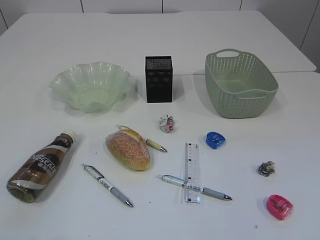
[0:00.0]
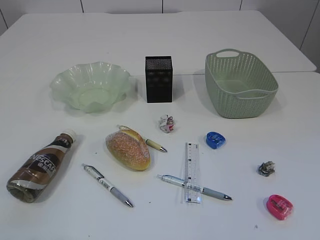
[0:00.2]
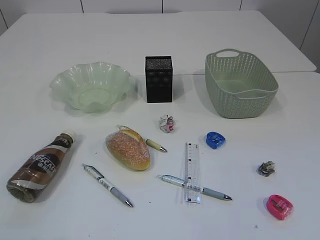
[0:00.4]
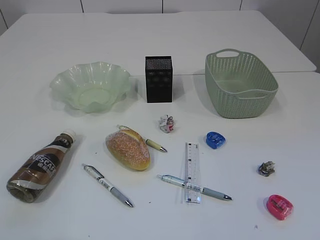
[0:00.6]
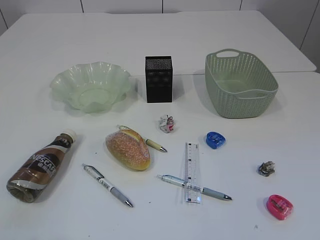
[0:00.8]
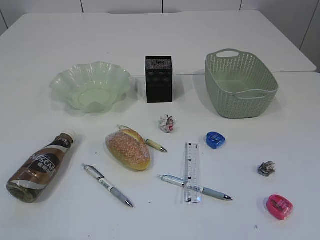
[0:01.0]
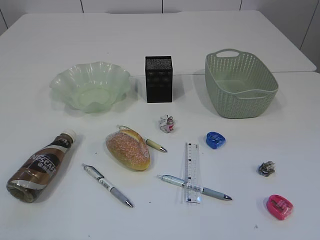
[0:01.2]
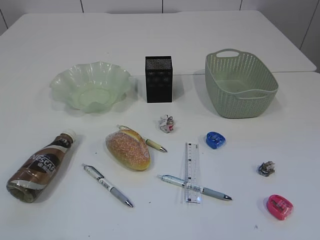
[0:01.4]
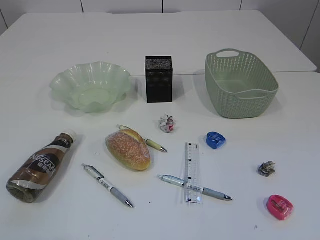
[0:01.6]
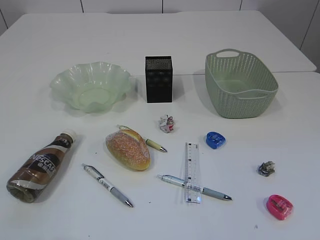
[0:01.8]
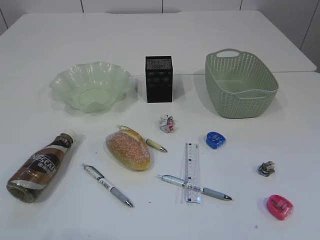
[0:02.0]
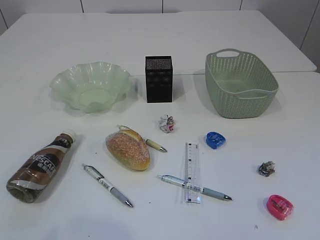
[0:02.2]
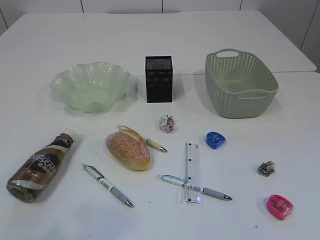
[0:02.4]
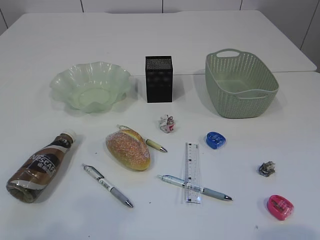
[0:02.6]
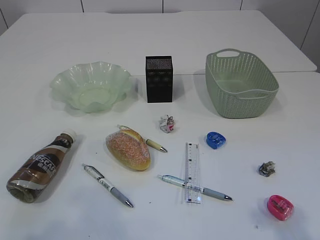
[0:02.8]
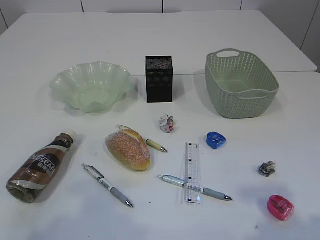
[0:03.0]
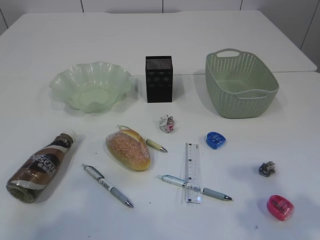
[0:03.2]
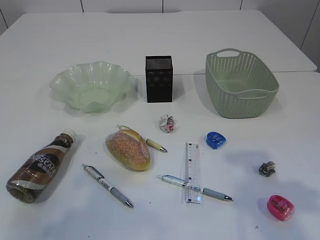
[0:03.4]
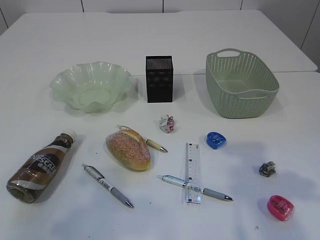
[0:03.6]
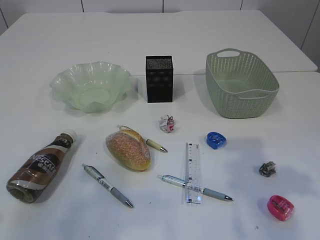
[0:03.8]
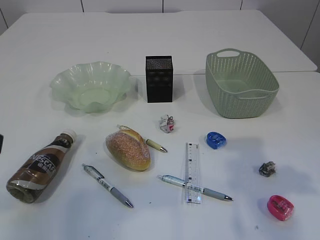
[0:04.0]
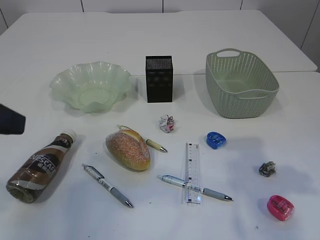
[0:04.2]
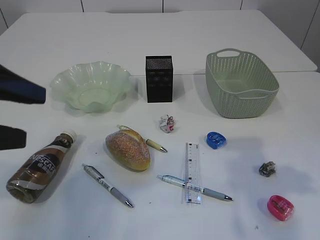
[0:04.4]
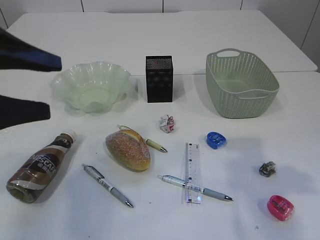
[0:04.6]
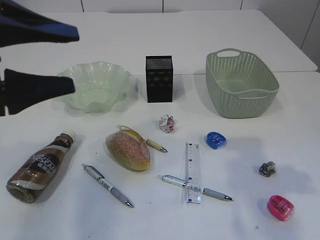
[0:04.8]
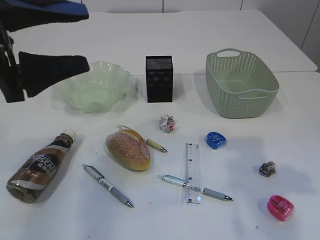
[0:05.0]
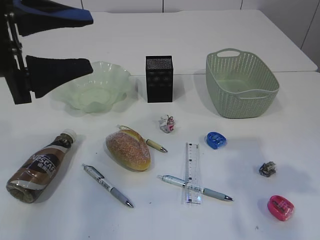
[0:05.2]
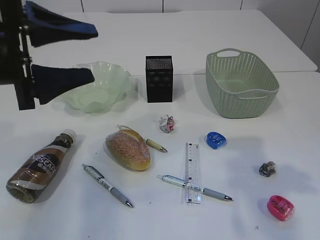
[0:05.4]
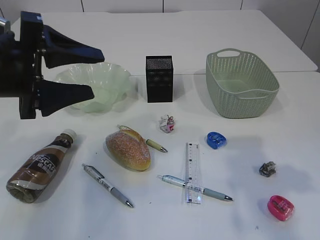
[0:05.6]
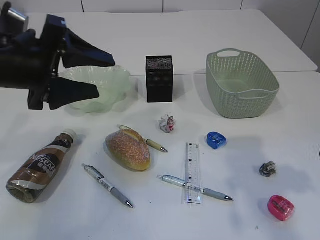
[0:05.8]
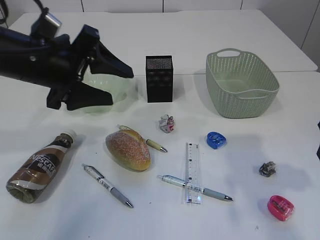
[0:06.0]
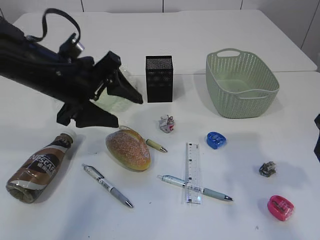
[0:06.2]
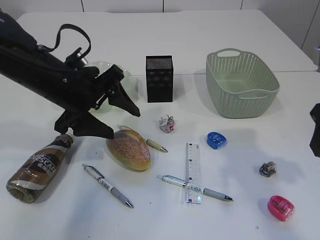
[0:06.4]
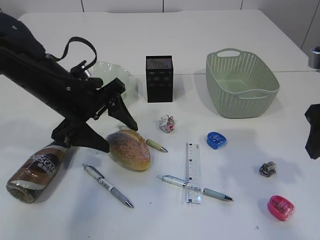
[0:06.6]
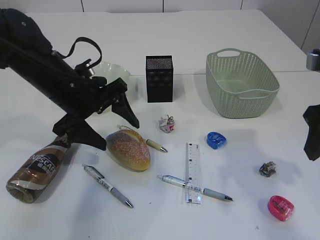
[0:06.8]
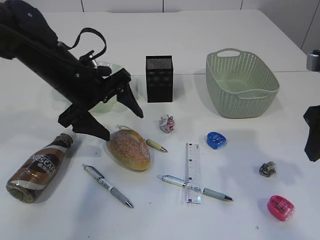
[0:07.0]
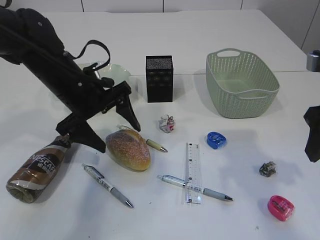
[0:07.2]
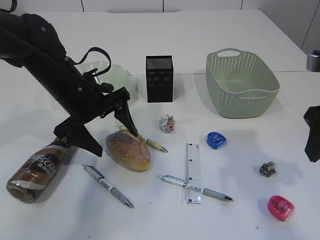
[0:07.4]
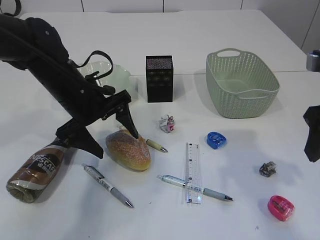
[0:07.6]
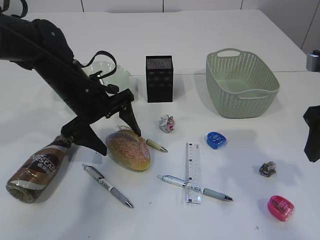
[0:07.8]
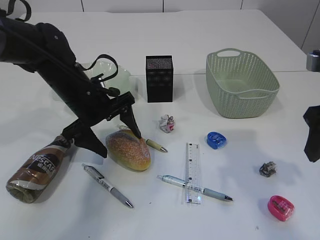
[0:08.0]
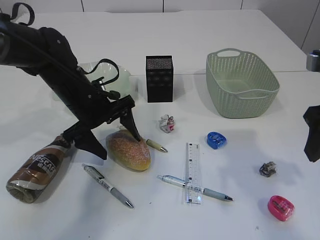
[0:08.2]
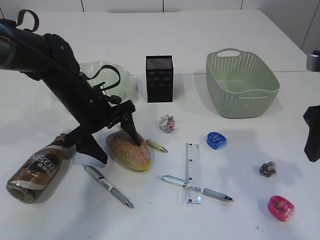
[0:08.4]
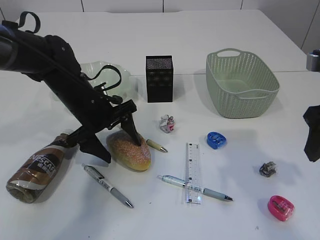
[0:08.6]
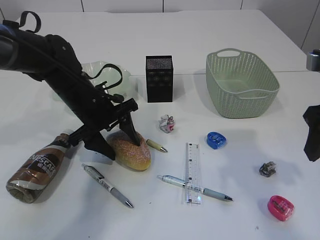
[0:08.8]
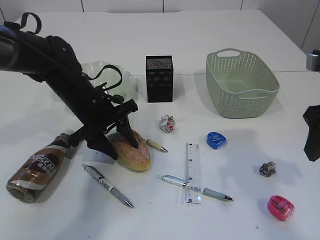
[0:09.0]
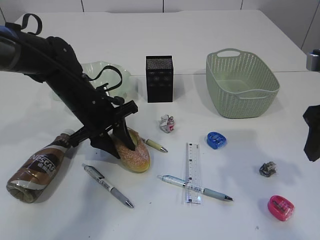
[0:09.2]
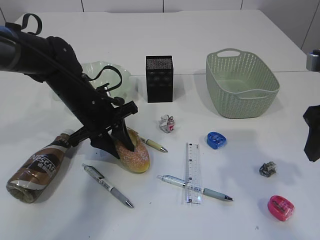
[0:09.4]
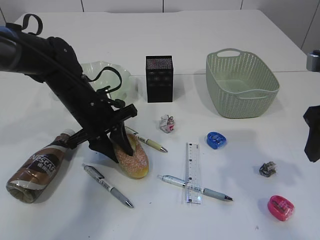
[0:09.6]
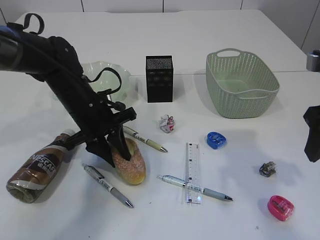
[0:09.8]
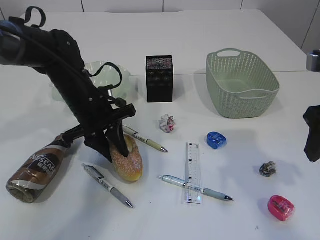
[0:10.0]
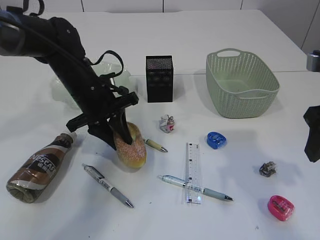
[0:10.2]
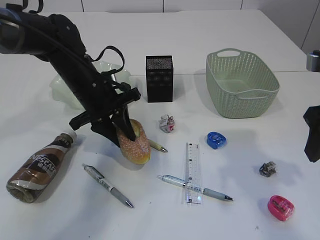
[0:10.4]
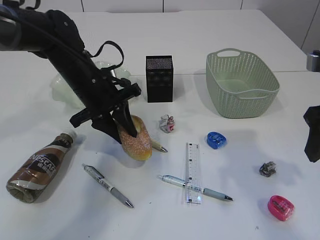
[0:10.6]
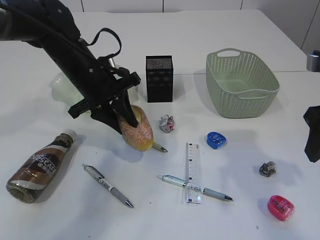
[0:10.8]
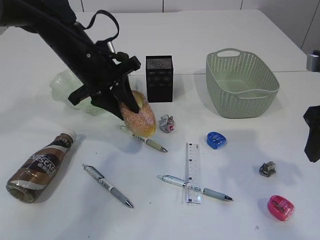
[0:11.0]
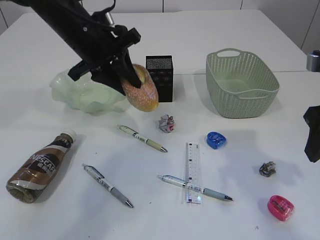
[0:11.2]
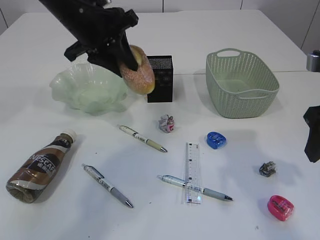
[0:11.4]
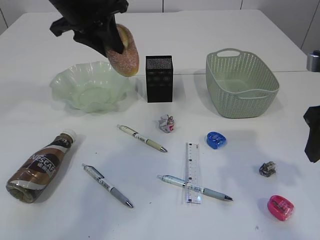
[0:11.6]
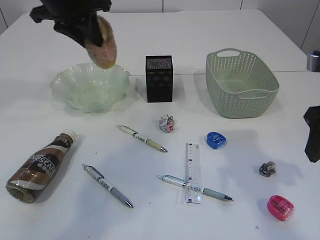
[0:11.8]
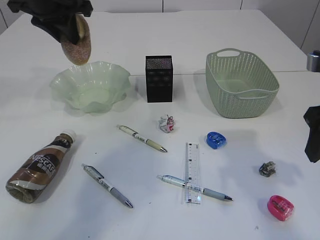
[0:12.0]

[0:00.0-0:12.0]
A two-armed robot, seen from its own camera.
0:01.6 to 0:03.0: Both grippers travel together forward, approximately 10 cm.
0:03.0 to 0:04.4: Both grippers move forward, approximately 10 cm.
0:04.4 to 0:06.0: The left gripper travels forward and to the right by approximately 15 cm.
0:06.0 to 0:07.6: The left gripper travels downward and forward by approximately 10 cm.
0:07.6 to 0:09.0: The left gripper closes its fingers.
0:09.0 to 0:10.4: The left gripper closes its fingers.
0:10.4 to 0:12.0: The left gripper is displaced upward by about 15 cm.

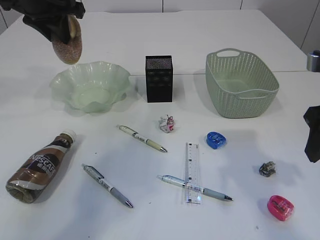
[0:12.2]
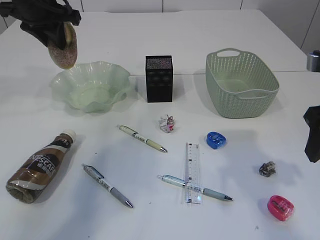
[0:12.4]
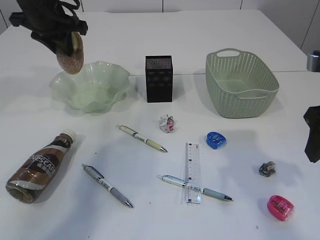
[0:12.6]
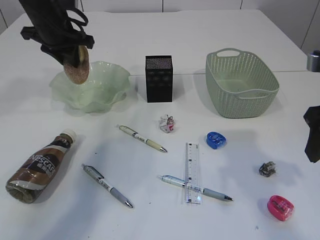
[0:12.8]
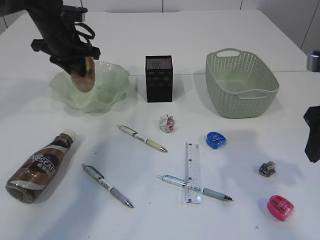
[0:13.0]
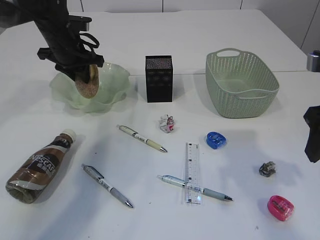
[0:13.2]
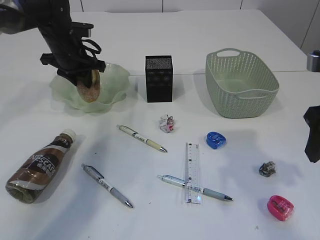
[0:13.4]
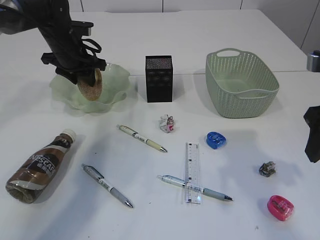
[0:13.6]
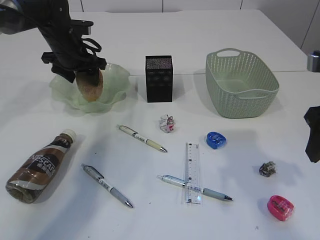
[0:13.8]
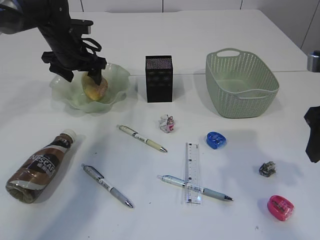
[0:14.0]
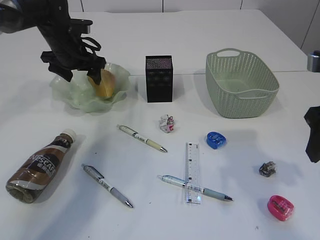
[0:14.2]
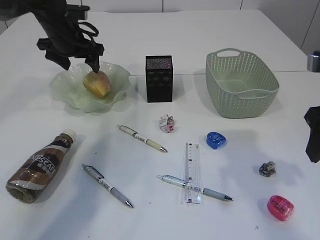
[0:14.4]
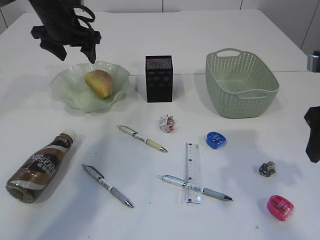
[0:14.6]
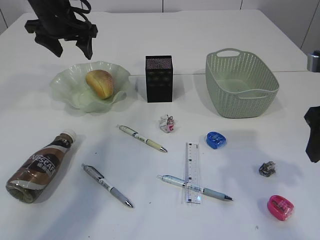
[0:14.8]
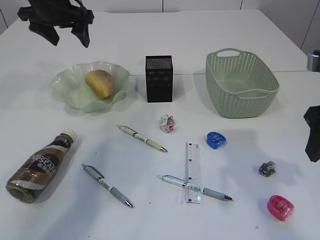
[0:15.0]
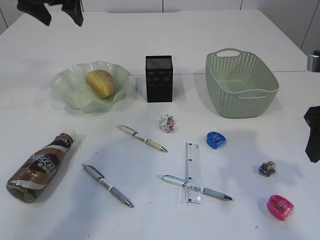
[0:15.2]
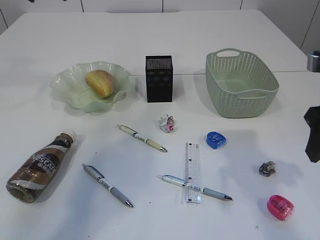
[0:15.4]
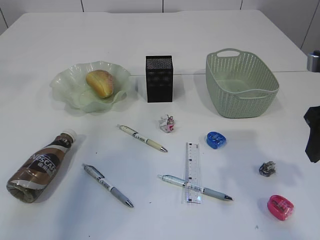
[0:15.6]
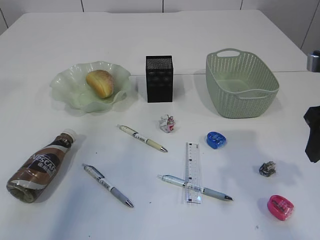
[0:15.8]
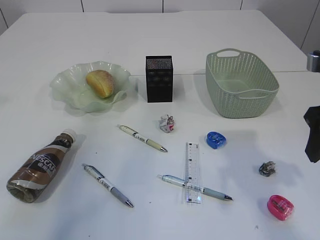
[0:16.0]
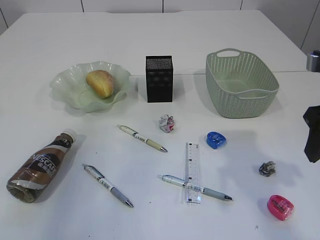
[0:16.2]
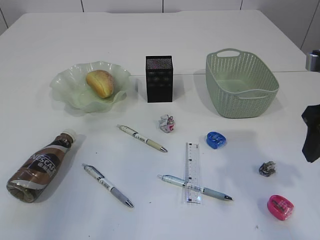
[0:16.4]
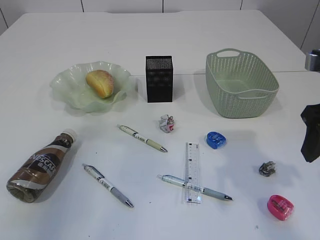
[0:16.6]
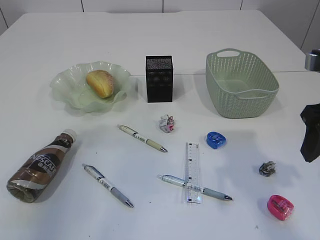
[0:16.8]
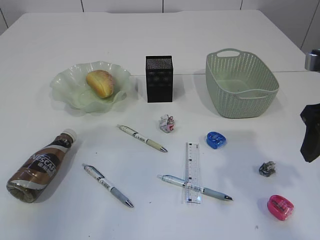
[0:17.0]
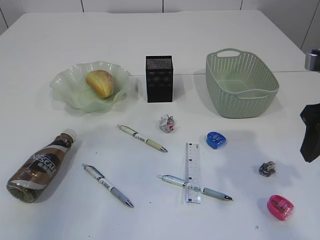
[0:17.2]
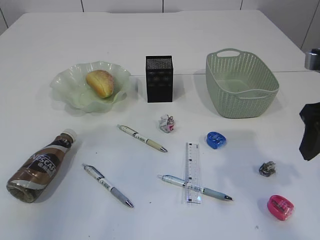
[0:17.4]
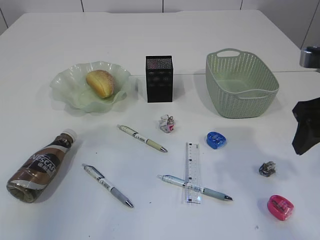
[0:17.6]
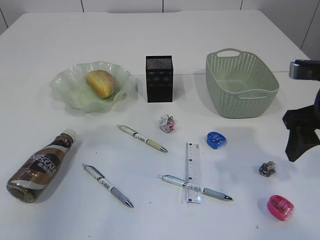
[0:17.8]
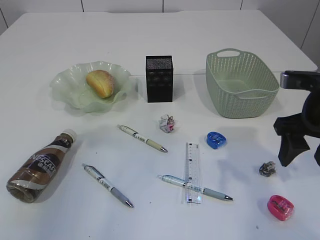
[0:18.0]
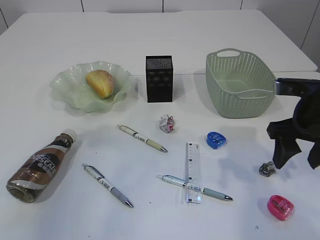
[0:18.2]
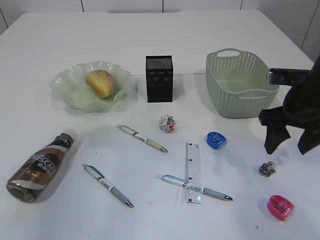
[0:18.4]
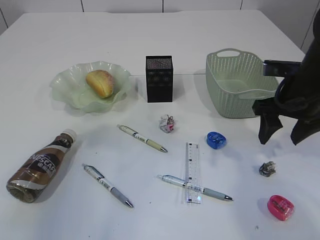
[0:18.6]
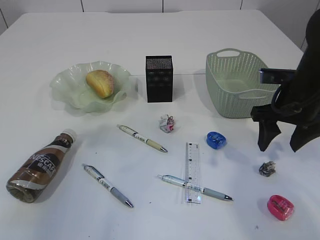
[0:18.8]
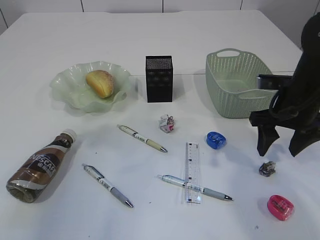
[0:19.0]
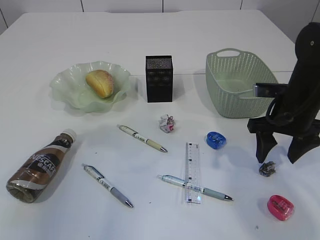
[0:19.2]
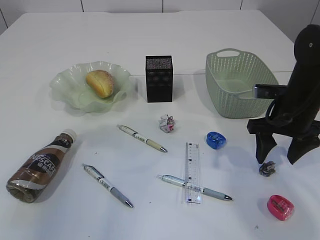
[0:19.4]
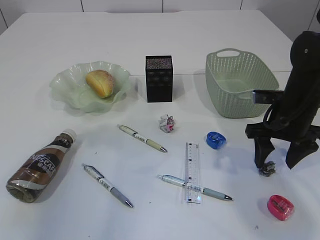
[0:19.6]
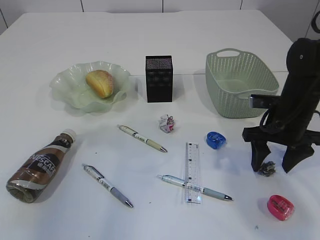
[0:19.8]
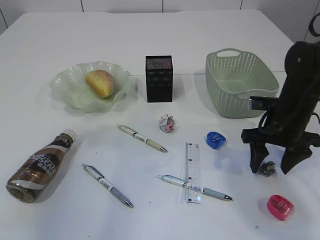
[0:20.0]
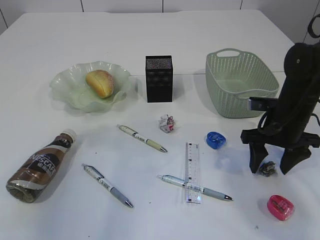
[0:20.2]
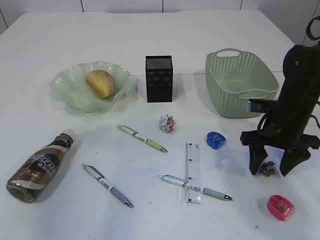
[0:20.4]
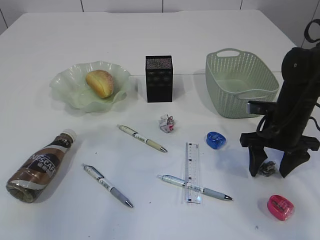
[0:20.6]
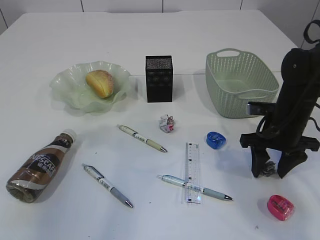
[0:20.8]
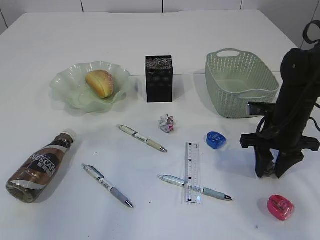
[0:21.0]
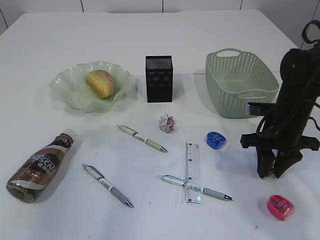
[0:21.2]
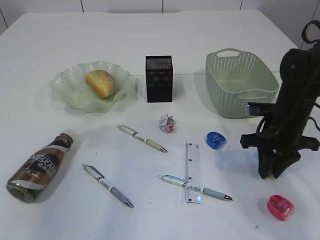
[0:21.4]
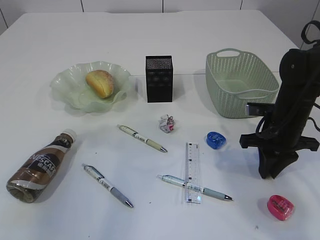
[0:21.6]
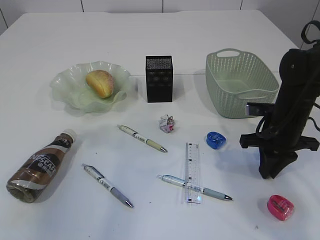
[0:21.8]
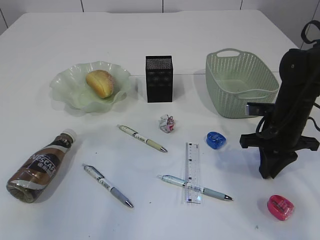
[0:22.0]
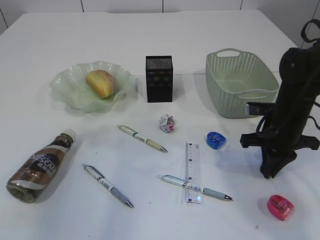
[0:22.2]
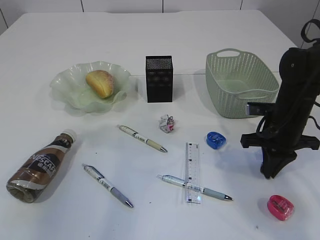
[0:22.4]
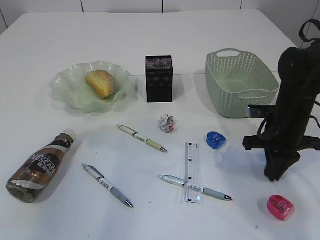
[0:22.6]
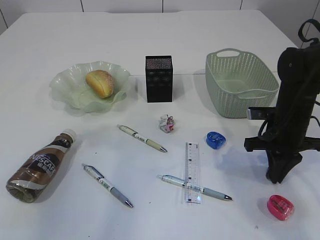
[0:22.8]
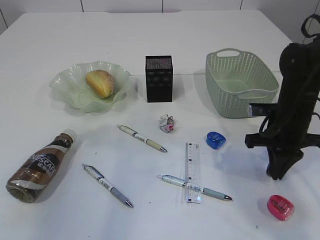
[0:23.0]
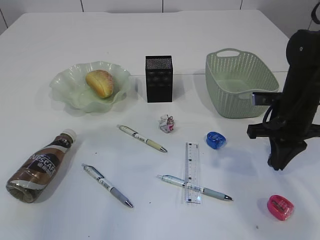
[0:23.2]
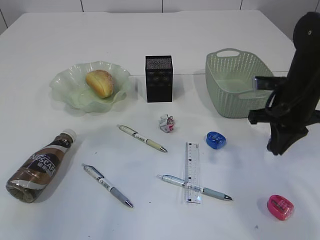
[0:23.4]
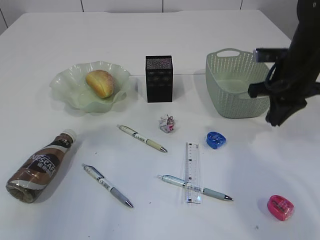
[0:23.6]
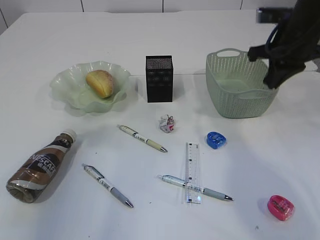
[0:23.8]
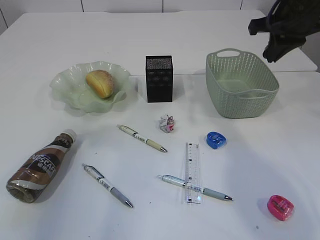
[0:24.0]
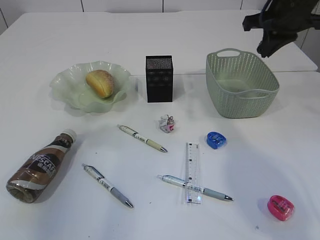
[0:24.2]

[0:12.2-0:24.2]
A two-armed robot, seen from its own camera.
Step, 0:12.2 to 0:15.0: place the bread in the plate.
Step, 0:15.2 to 0:23.2: Pick up the waste paper.
0:12.2 to 0:13.8: The left gripper heads downward and forward, covering roughly 15 cm, and opens.
0:13.8 to 0:15.2: The left gripper travels upward by approximately 15 cm.
0:15.2 to 0:16.6: The left gripper moves backward, some 20 cm.
0:16.6 to 0:18.2: The right gripper moves downward and forward, approximately 10 cm.
0:18.2 to 0:19.8: The right gripper goes roughly 10 cm downward and forward.
0:19.8 to 0:21.2: The right gripper closes its fingers.
0:21.2 to 0:22.6: The right gripper closes up.
0:22.6 to 0:24.2: The right gripper heads upward and forward, covering about 20 cm.
